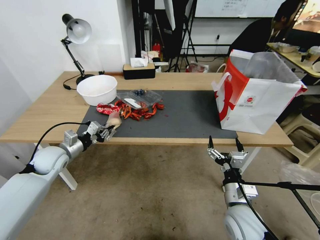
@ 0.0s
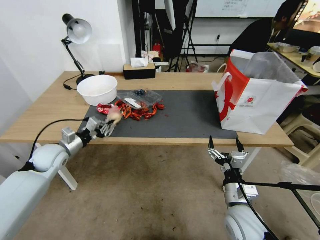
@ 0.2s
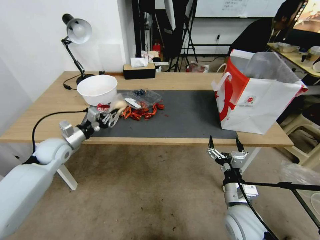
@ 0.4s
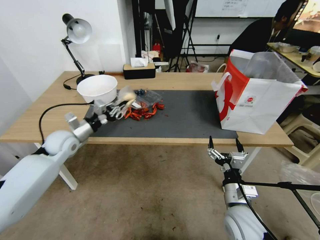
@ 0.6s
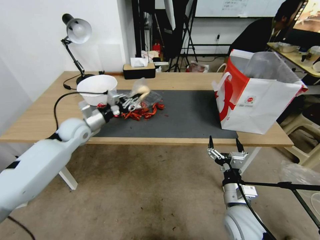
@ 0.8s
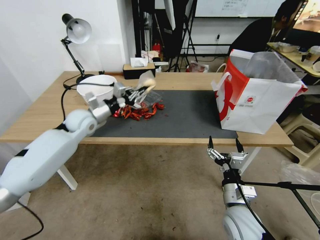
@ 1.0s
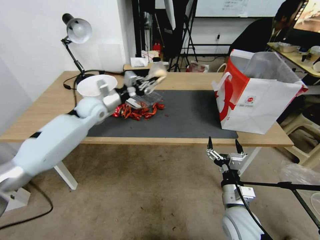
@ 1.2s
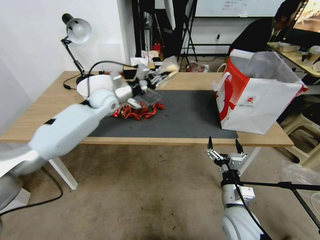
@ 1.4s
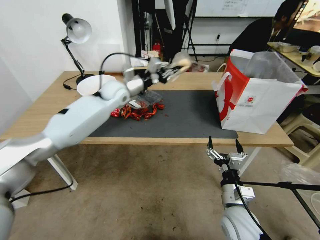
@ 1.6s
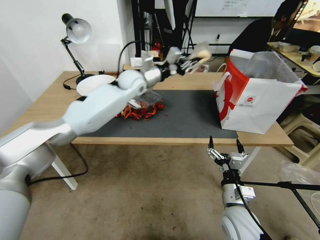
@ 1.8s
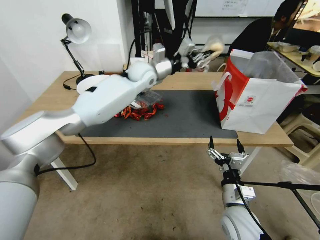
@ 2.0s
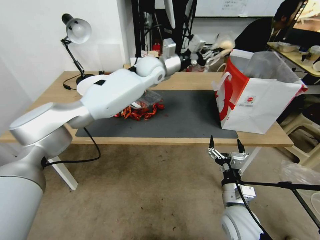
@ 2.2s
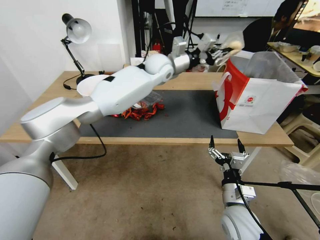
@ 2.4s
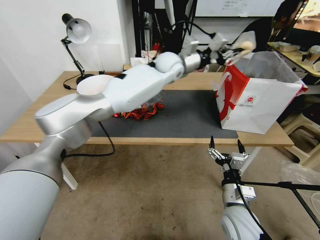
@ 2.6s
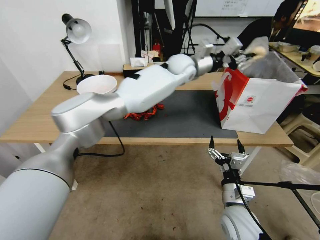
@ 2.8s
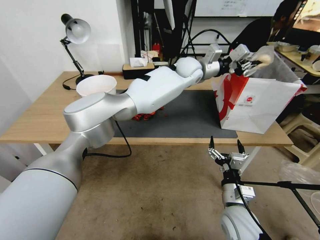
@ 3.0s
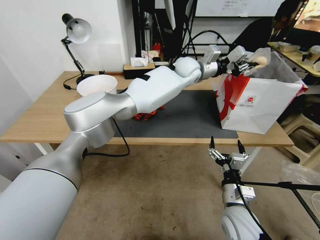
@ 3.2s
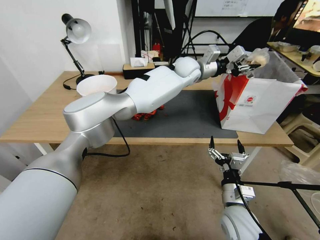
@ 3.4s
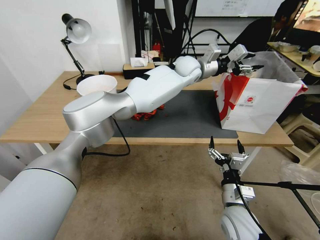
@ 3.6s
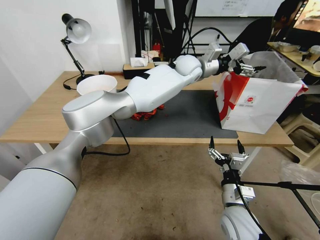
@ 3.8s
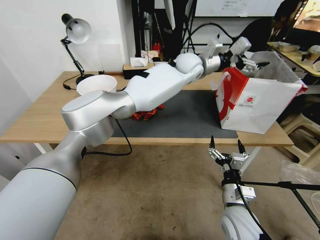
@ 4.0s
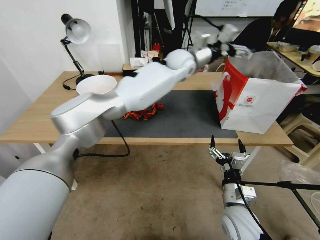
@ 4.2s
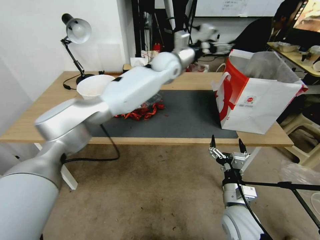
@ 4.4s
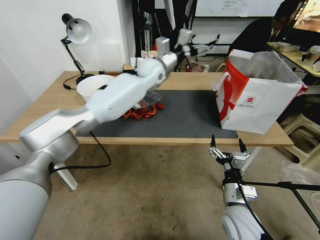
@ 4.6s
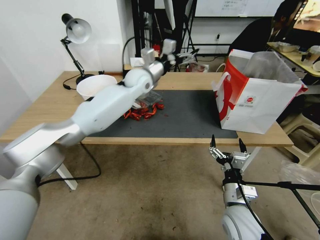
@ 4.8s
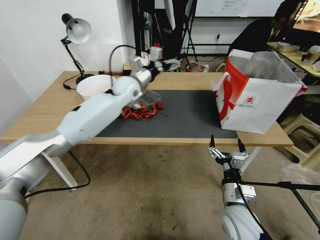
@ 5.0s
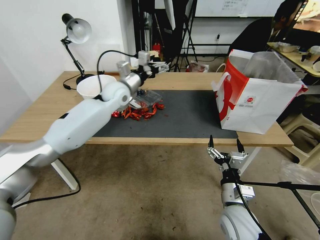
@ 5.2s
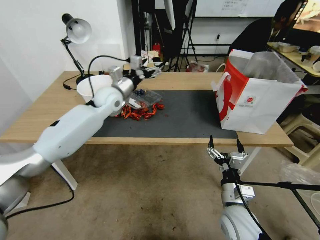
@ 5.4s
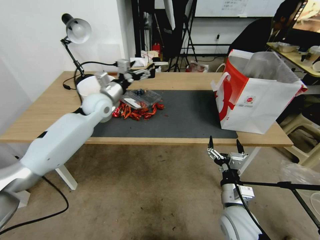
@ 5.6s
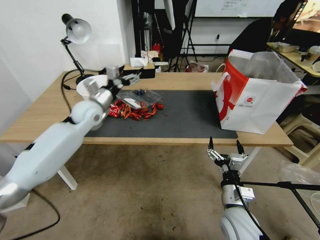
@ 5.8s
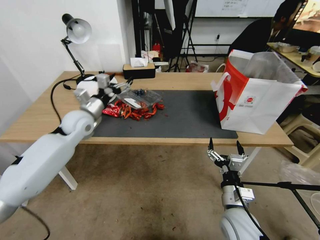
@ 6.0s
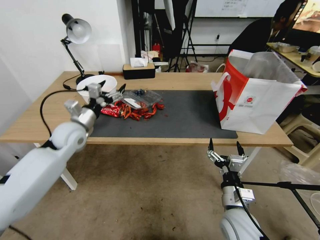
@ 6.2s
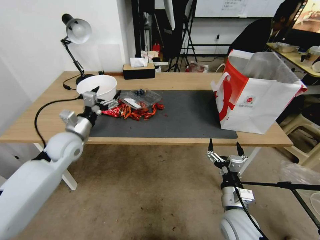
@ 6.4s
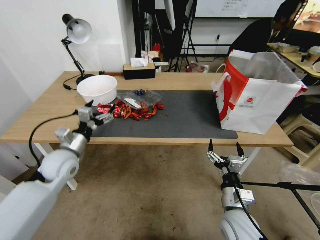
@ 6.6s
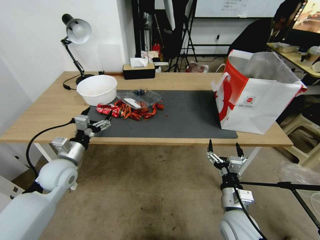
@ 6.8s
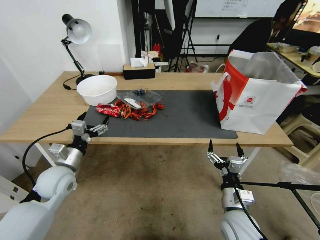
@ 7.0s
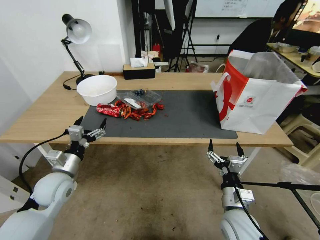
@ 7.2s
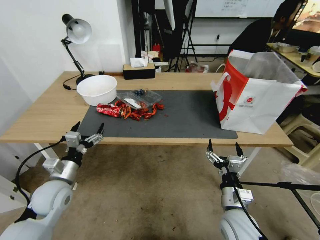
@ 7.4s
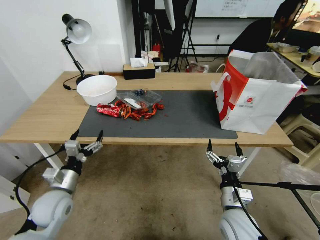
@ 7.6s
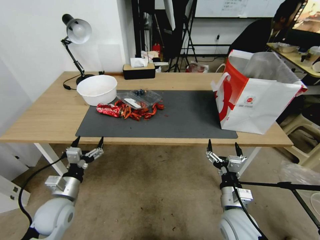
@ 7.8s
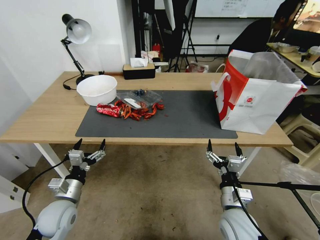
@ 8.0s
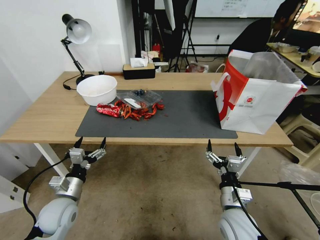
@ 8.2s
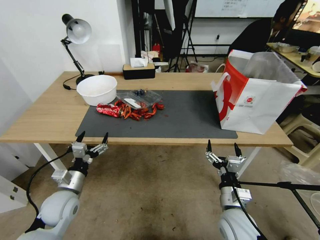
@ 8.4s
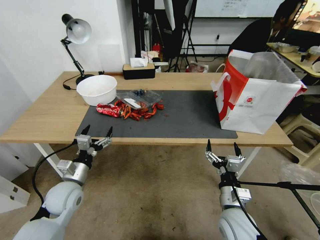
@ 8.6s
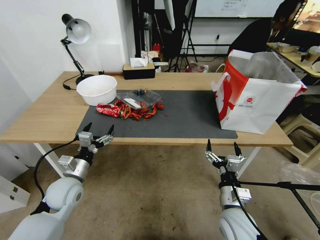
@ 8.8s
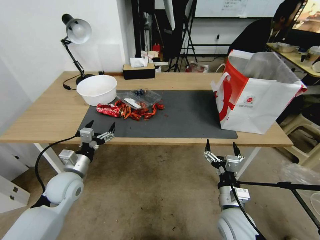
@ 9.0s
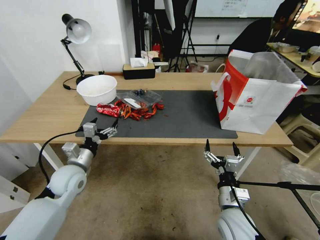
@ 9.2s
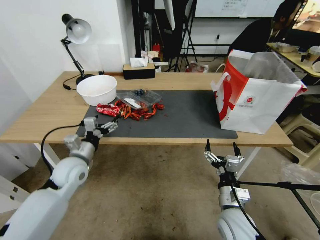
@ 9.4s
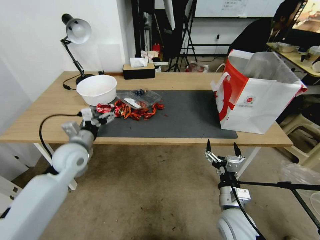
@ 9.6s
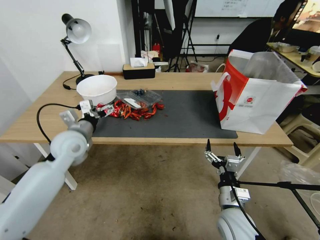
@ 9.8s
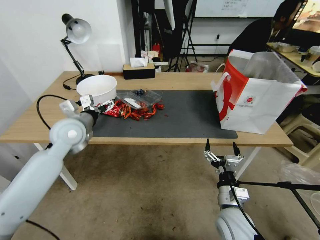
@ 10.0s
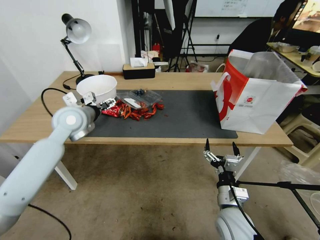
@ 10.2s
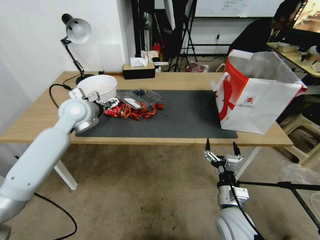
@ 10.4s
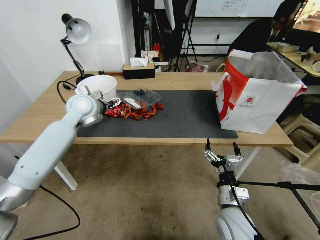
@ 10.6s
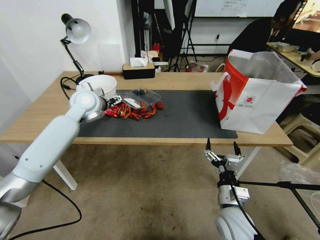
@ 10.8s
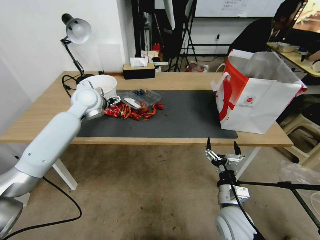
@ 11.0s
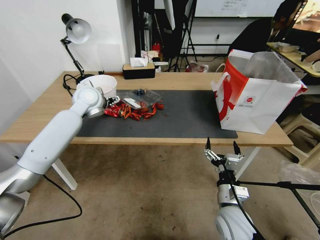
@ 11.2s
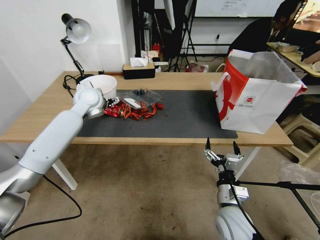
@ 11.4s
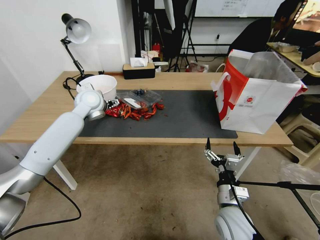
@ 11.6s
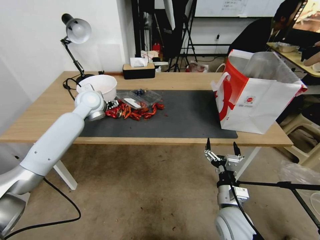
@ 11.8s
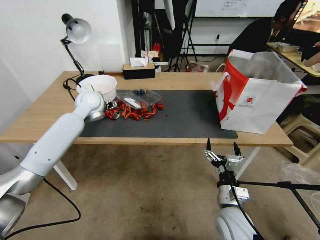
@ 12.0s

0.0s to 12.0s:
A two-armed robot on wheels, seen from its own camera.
0.0s to 1.6s: The left gripper heads to the right, forward and upward, covering about 35 cm.
1.6s to 3.0s: The left gripper is displaced to the right by some 25 cm.
3.0s to 4.4s: The left gripper travels to the left by roughly 10 cm, and opens.
4.4s to 6.0s: The left gripper travels to the left, backward and downward by roughly 35 cm.
6.0s to 7.6s: The left gripper heads backward and downward, covering roughly 25 cm.
7.6s to 9.0s: The left gripper shifts by roughly 5 cm.
9.0s to 10.4s: The left gripper moves upward and forward, some 25 cm.
10.4s to 12.0s: The left gripper goes some 5 cm forward.

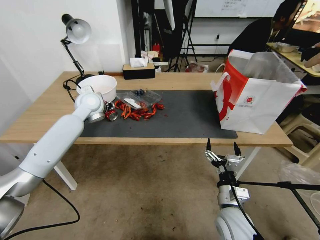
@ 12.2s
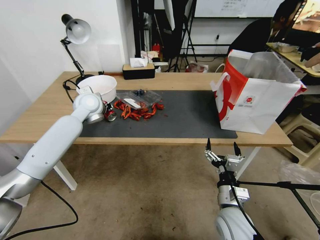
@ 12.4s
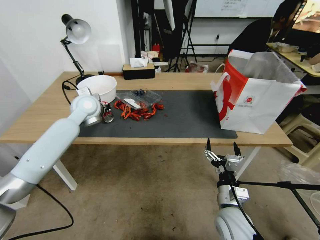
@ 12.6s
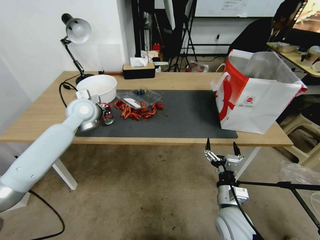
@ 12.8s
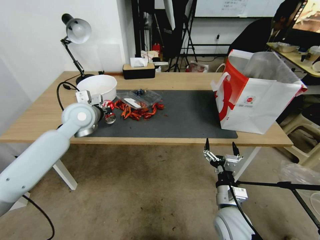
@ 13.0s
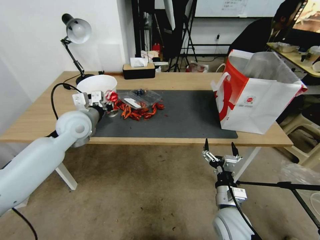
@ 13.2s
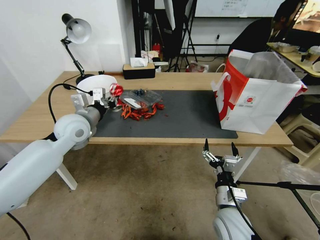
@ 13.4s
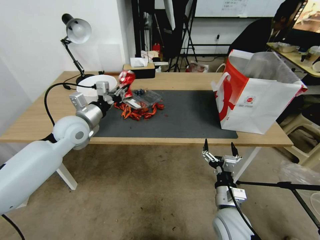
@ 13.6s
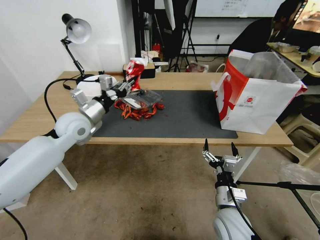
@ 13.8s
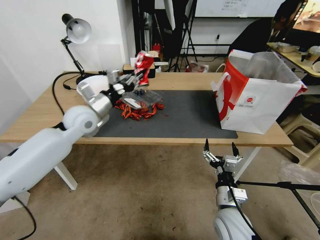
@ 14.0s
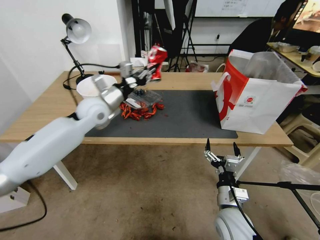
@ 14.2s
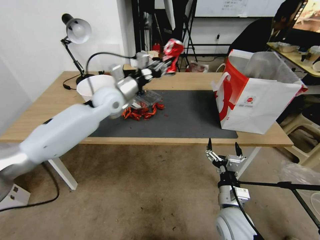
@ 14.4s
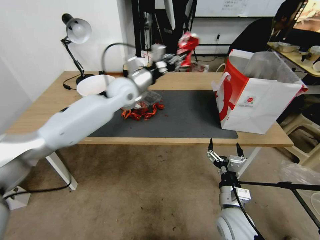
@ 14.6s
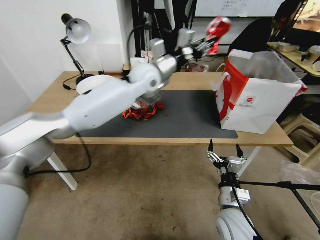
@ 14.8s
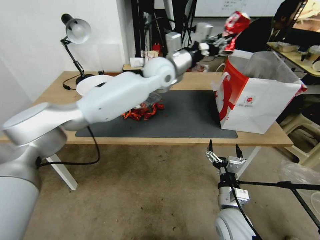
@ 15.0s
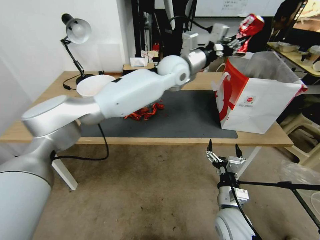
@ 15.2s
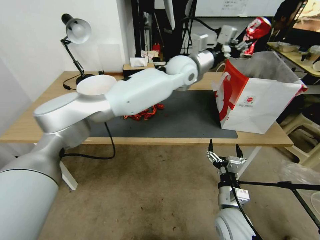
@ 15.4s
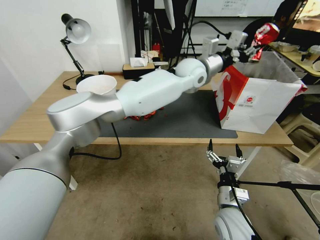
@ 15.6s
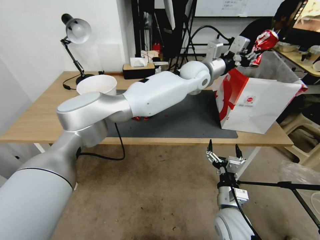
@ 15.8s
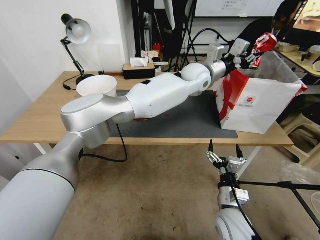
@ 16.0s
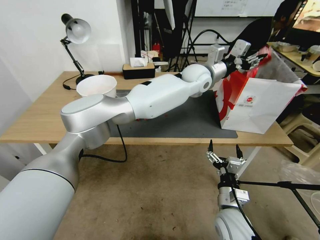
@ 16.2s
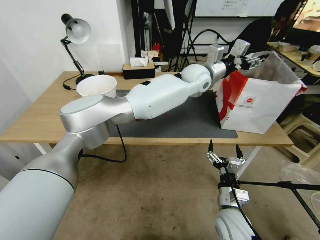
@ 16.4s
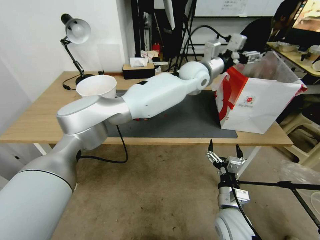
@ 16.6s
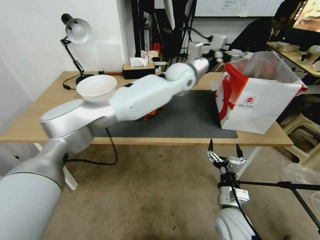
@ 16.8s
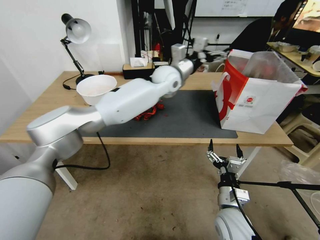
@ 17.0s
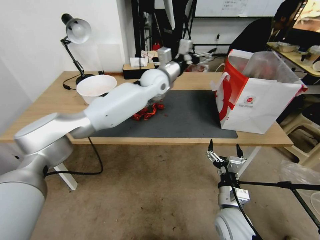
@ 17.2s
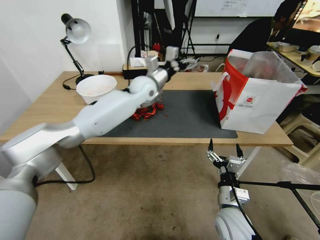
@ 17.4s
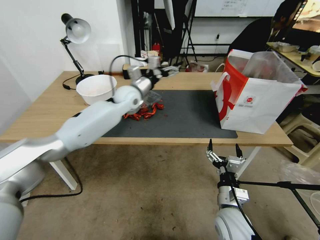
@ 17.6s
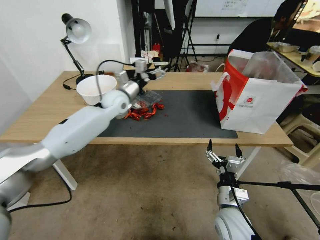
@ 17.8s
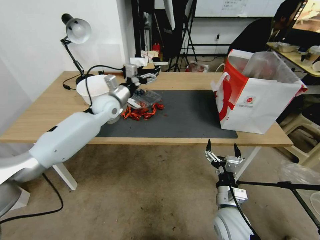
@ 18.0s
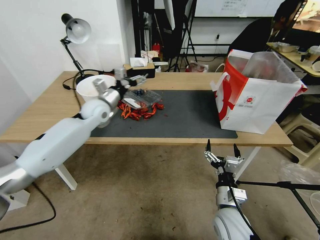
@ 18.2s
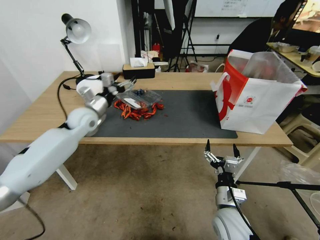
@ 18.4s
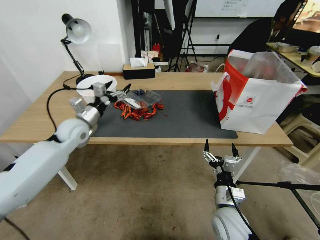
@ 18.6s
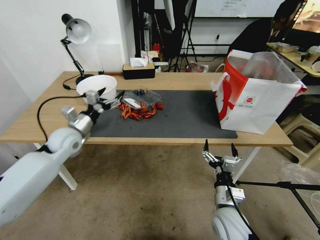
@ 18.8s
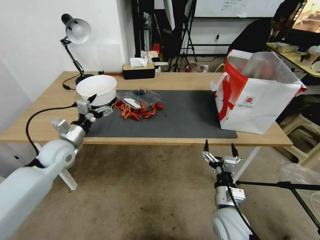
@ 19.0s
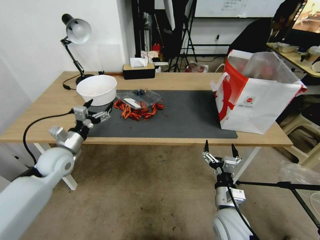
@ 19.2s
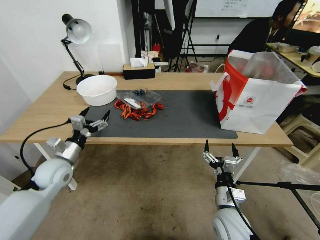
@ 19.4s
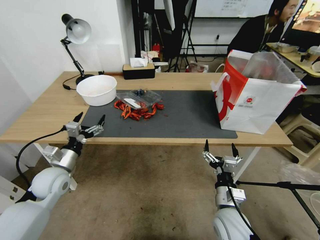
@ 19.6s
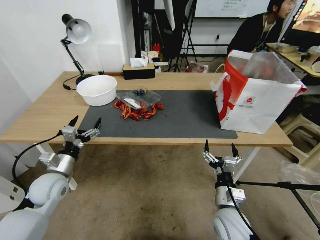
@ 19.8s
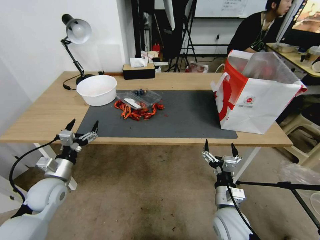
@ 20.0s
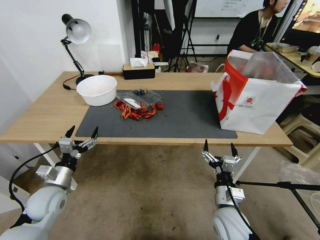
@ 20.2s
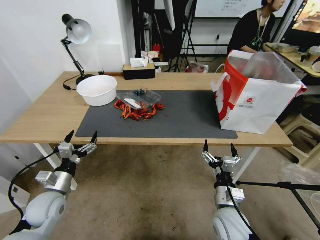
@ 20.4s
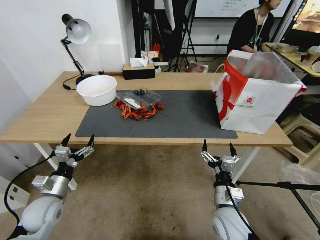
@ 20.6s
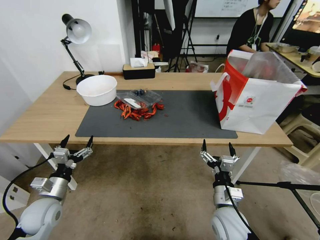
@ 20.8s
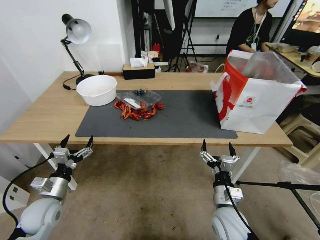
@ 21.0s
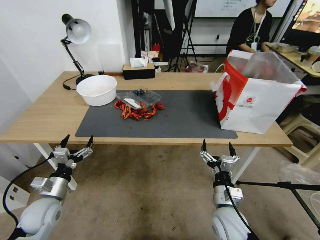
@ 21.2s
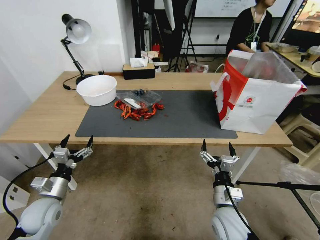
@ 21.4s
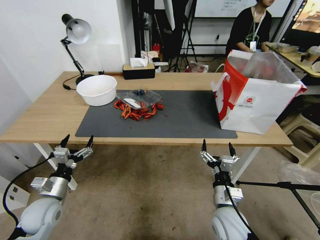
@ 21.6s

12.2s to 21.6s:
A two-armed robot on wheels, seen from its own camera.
12.2s to 13.8s: The left gripper shifts some 10 cm backward, and closes its fingers.
13.8s to 15.4s: The left gripper heads to the right, covering about 35 cm.
15.4s to 17.0s: The left gripper moves about 5 cm, and opens its fingers.
17.0s to 18.4s: The left gripper heads to the left, covering roughly 30 cm.
18.4s to 20.0s: The left gripper goes roughly 25 cm backward and downward.
20.0s to 21.6s: The left gripper changes place by approximately 5 cm.

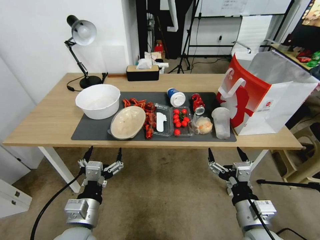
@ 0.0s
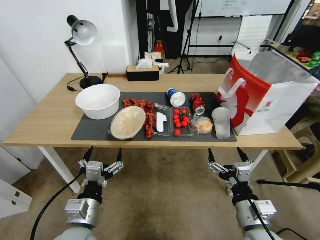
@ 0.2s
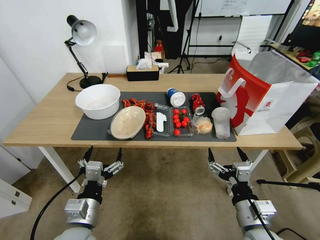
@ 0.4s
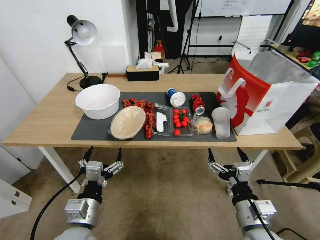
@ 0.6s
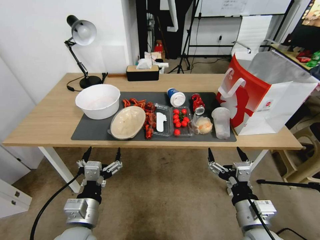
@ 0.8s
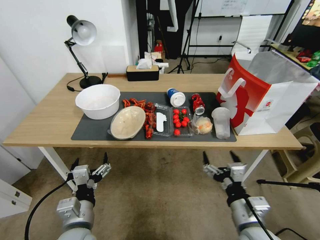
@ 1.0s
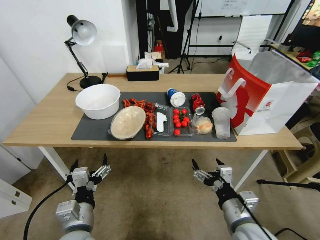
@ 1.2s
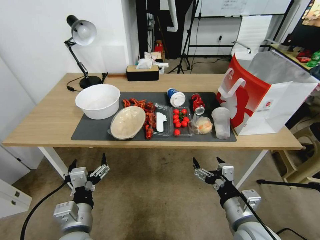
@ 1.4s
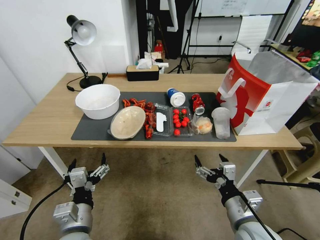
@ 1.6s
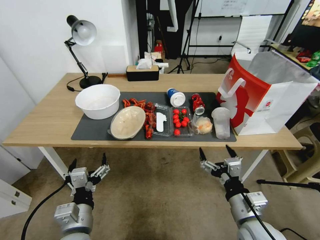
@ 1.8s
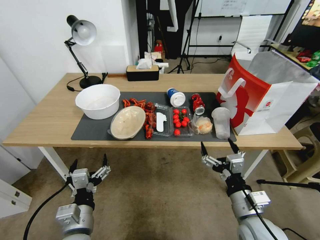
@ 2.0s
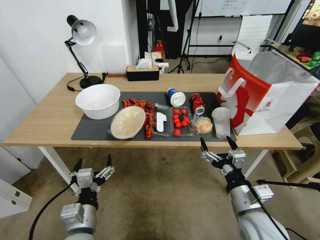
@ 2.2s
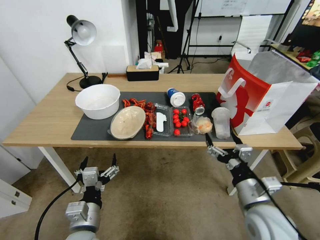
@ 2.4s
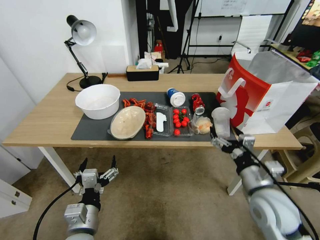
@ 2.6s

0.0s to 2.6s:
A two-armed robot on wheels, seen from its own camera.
1.2s to 2.6s: The right gripper goes some 10 cm forward and to the right.
